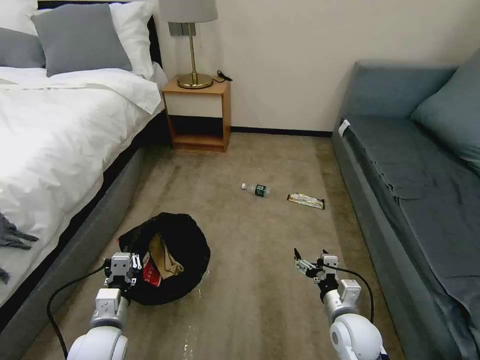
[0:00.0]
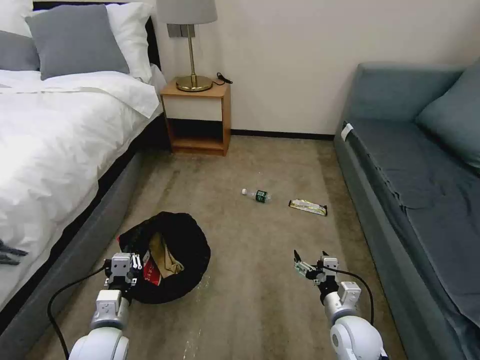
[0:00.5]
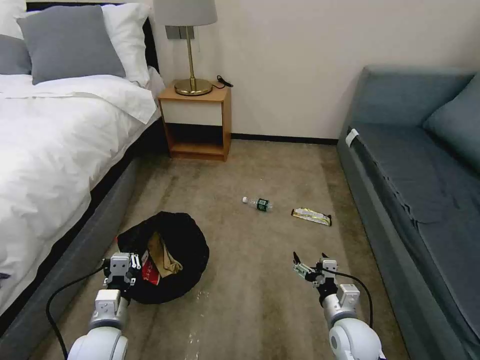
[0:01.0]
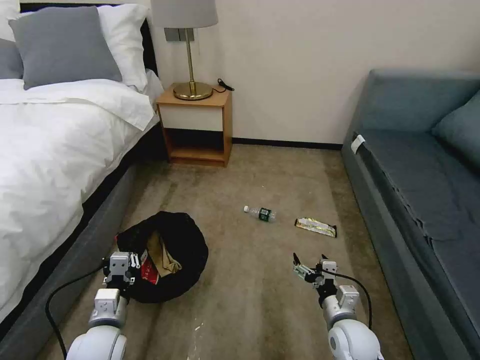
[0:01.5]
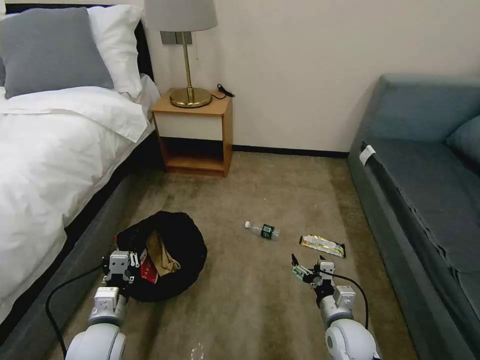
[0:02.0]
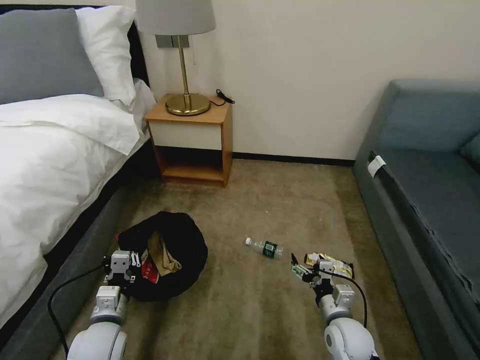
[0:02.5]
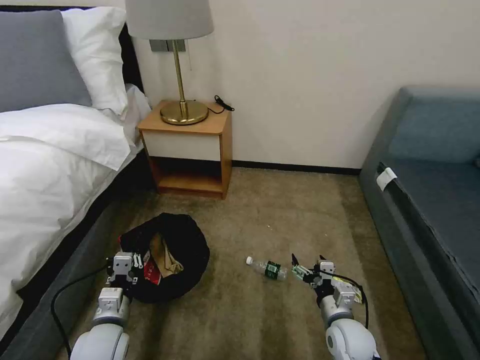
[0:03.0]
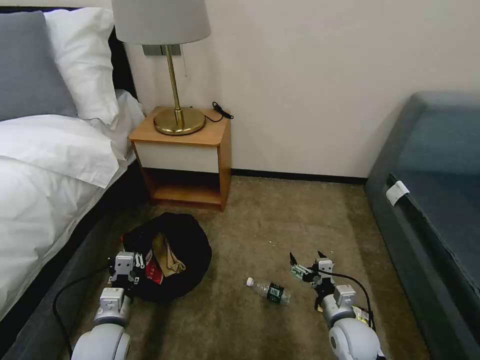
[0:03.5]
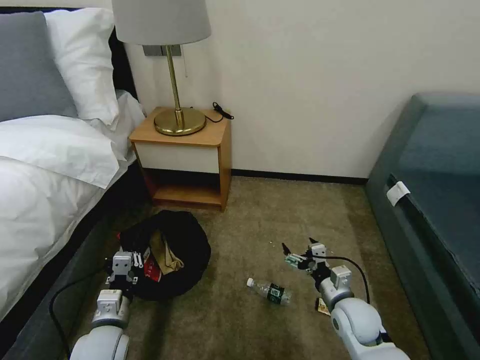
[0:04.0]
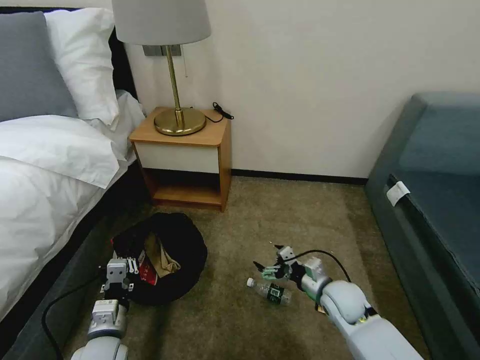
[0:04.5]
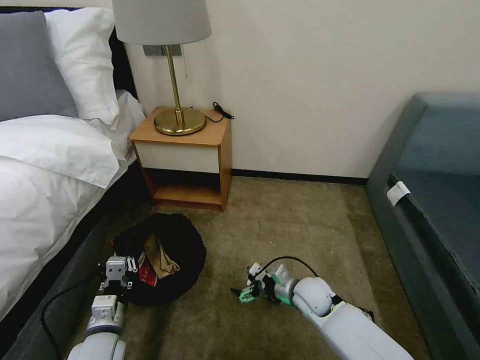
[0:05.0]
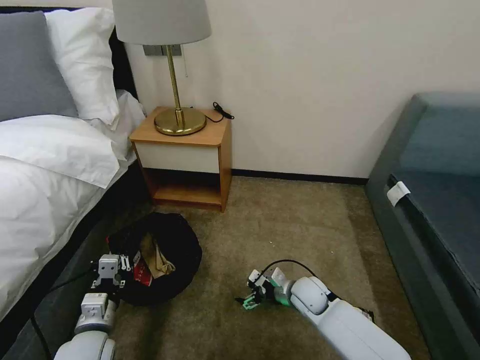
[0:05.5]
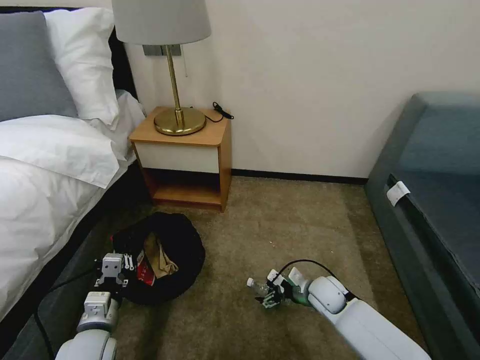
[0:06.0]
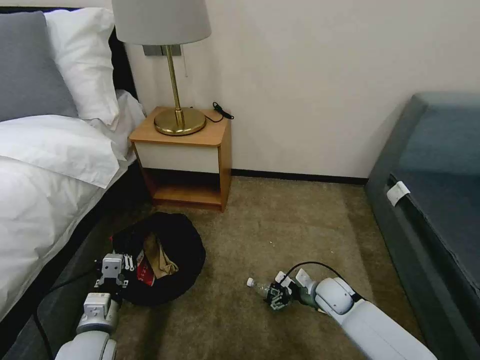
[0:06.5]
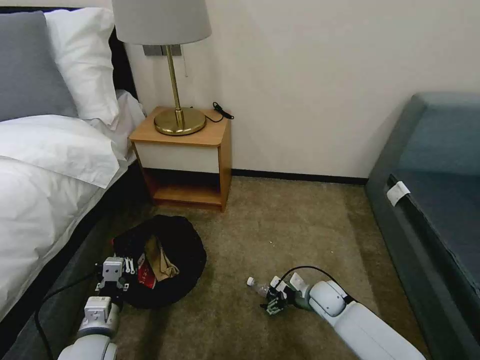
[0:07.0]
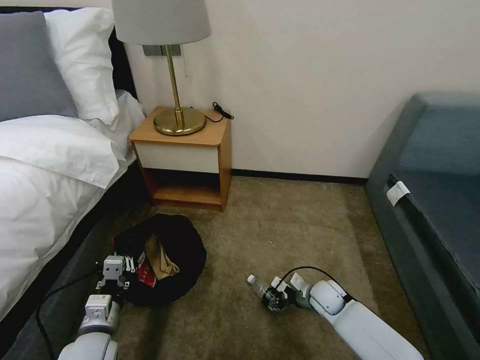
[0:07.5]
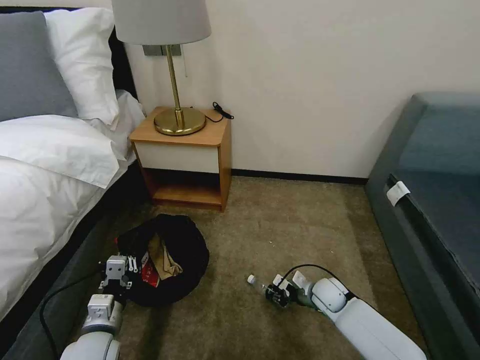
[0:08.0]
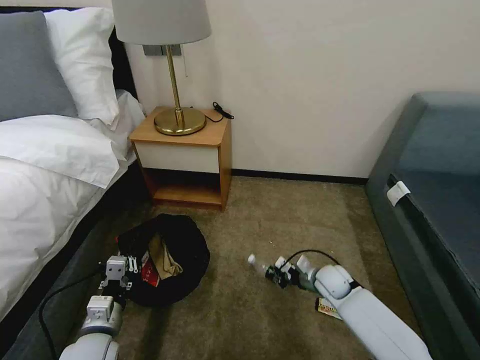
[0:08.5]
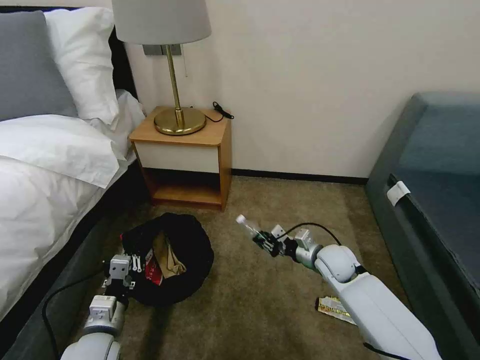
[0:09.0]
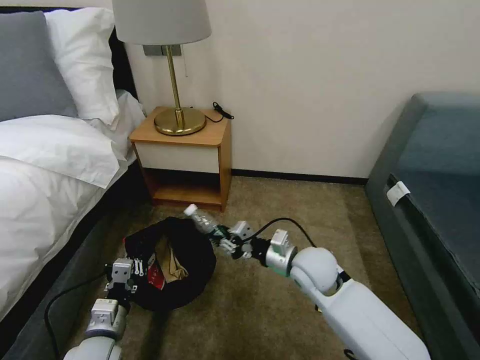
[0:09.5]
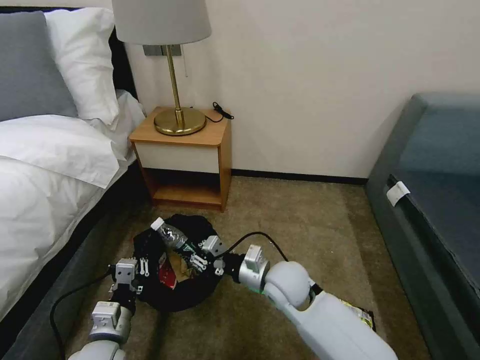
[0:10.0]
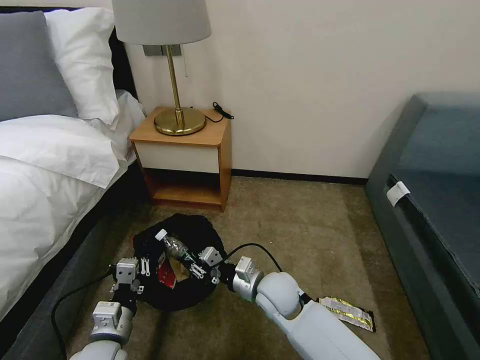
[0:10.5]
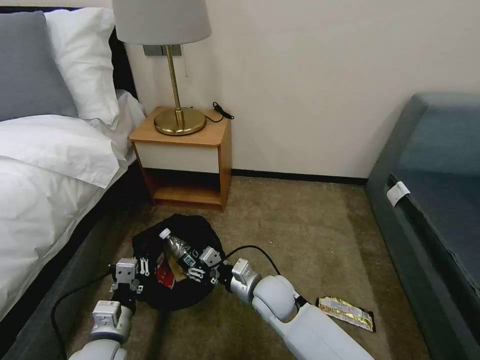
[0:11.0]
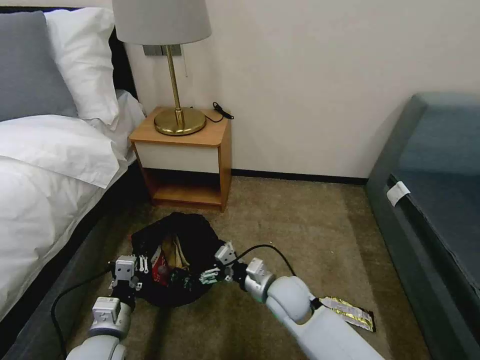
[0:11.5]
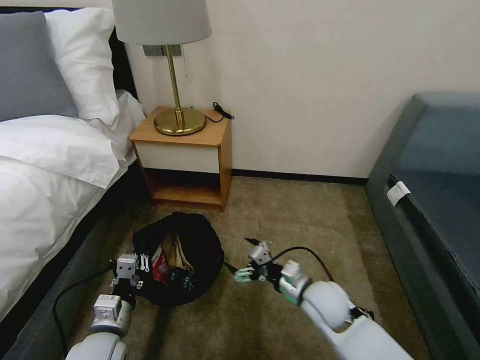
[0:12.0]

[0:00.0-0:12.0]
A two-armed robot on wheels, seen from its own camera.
Task of the whole recording: Pick up the trash bin, then pick up the garbage on the floor and place it into the trash bin.
0:02.0 to 0:04.0: The right gripper ends up about 5 cm from where it was.
0:04.0 to 0:06.0: The right gripper travels forward and downward by some 10 cm, and travels to the left and back again, approximately 10 cm each way.
0:06.0 to 0:08.0: The right gripper closes its fingers.
0:08.0 to 0:10.0: The right gripper heads upward and to the left, covering approximately 25 cm.
0:10.0 to 0:12.0: The right gripper moves downward, roughly 5 cm, and opens up.

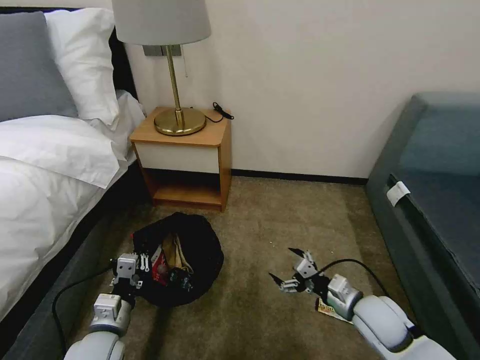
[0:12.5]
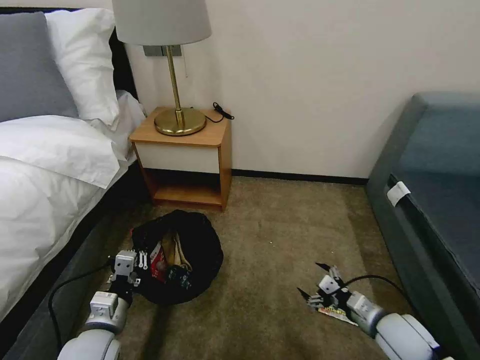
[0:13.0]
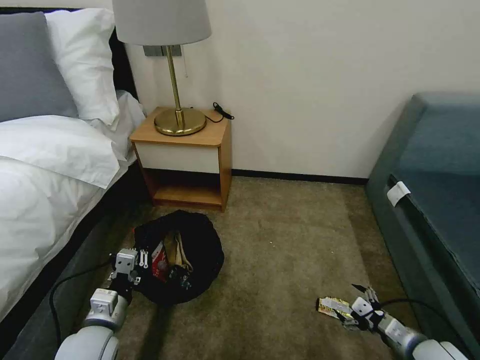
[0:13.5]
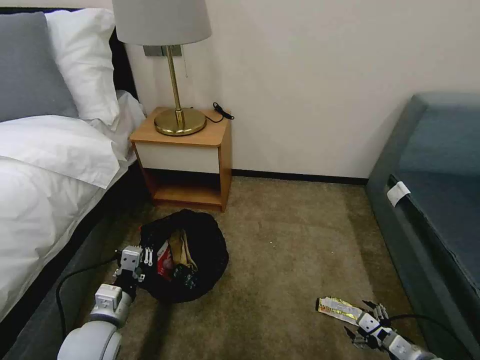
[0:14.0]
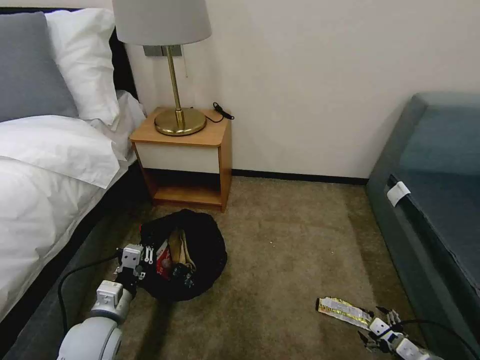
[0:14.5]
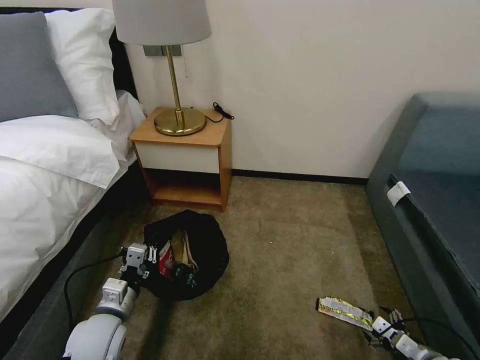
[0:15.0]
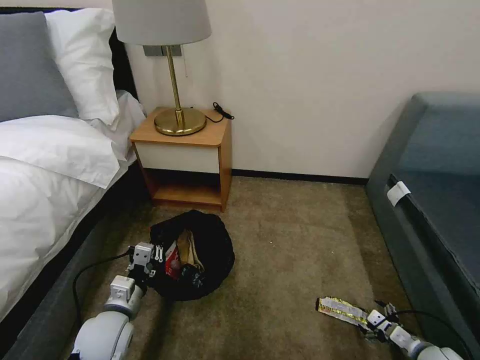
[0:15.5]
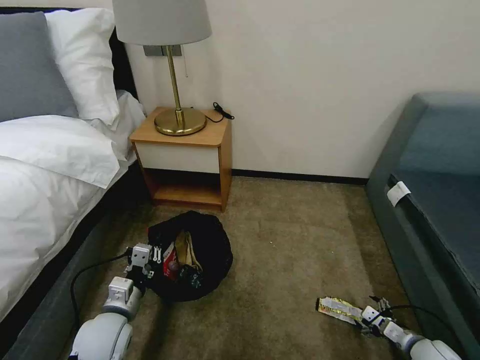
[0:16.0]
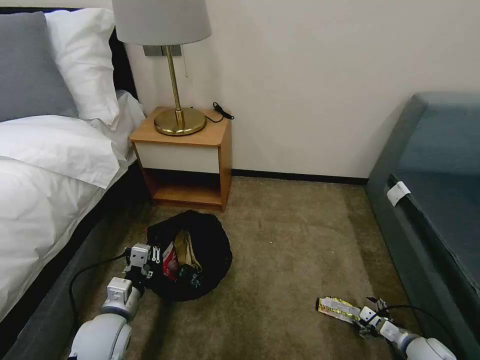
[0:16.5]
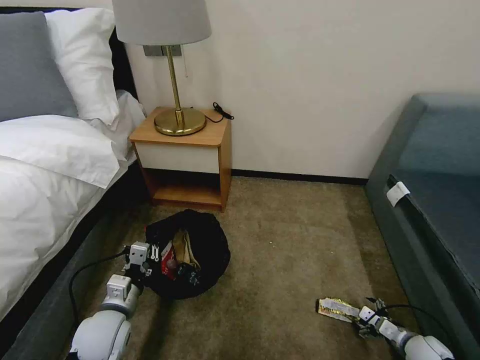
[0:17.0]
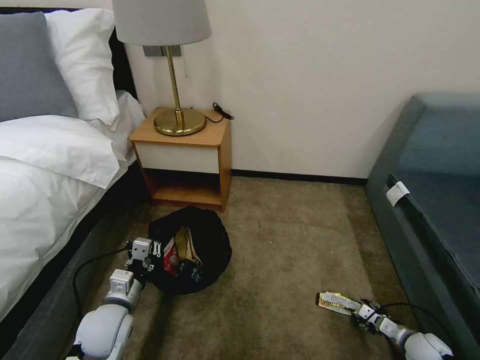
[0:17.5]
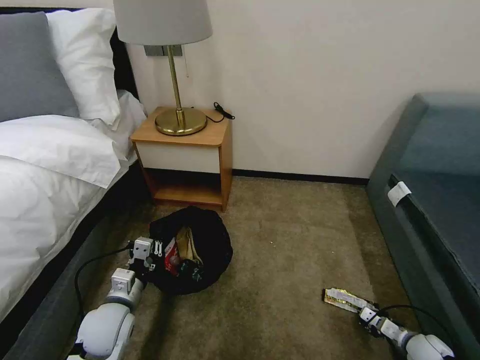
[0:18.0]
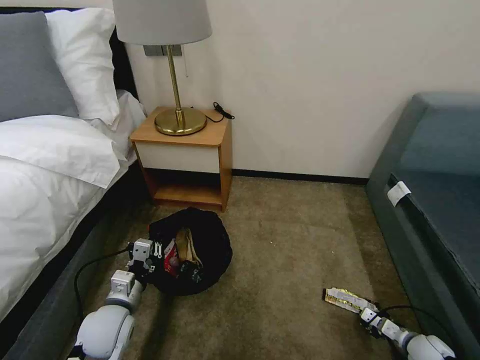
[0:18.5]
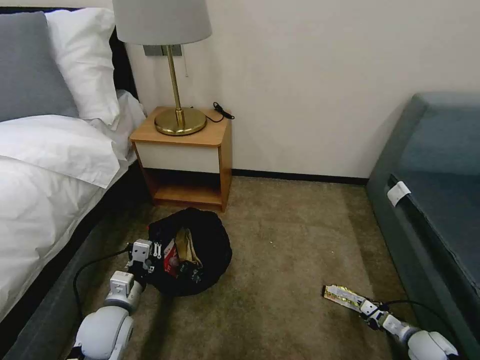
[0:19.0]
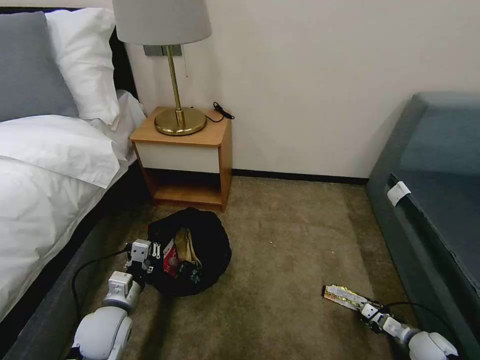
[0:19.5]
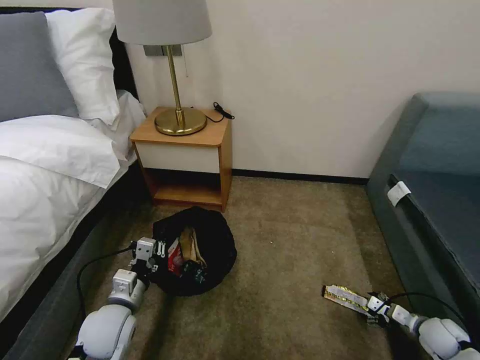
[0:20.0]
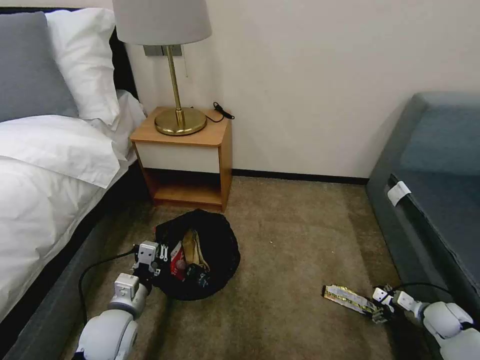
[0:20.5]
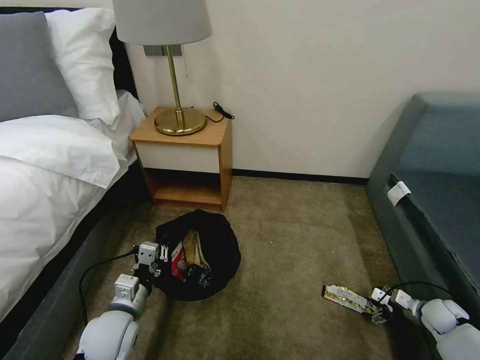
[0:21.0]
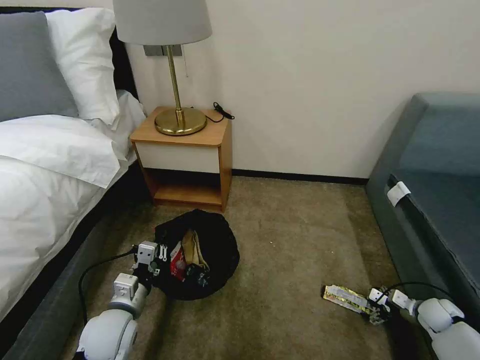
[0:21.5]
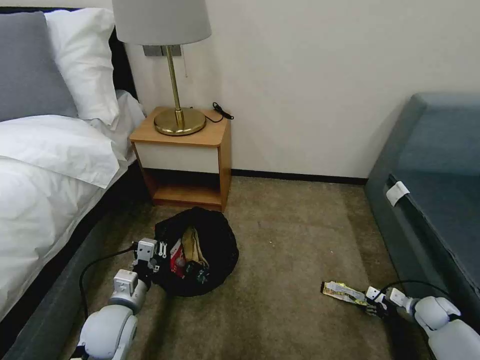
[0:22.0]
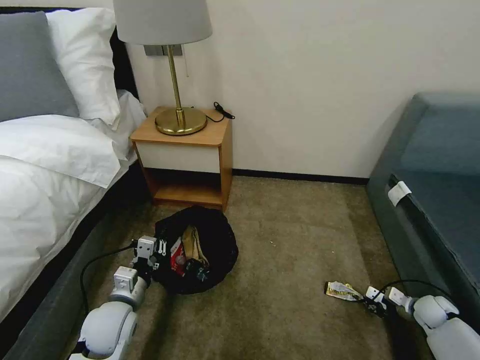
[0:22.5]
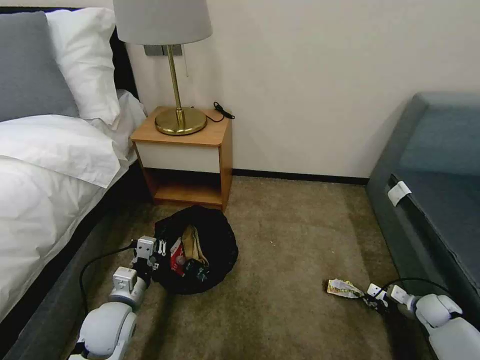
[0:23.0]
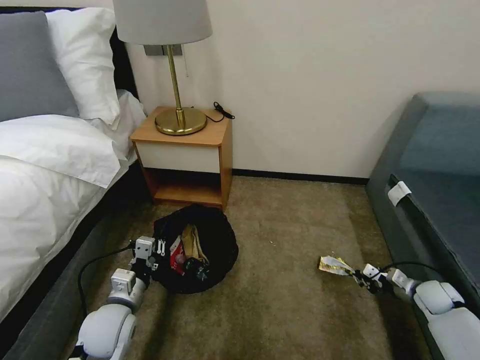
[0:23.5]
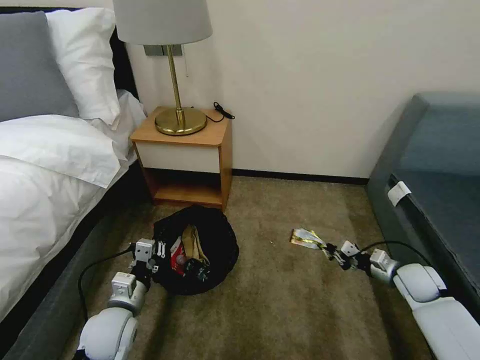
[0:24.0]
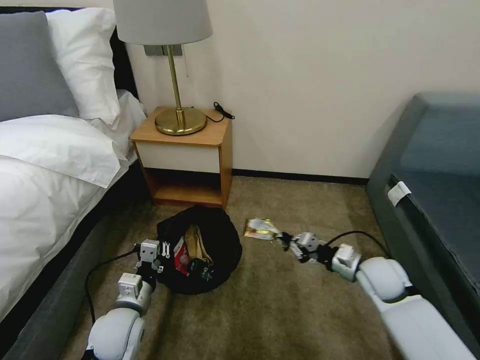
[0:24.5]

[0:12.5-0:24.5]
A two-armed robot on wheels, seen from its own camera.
Task of the whole recording: Pick up the trash bin, then pick up the garbage on the floor and place it into the trash bin.
0:12.5 to 0:14.5: The right gripper is displaced to the right and backward by about 20 cm.
0:14.5 to 0:16.5: The right gripper is displaced downward, forward and to the right by some 10 cm.
0:16.5 to 0:18.5: The right gripper closes up.
0:18.5 to 0:20.5: The right gripper opens.
0:20.5 to 0:22.5: The right gripper heads forward, covering some 5 cm, and closes.
0:22.5 to 0:24.5: The right gripper moves to the left and upward, approximately 25 cm.

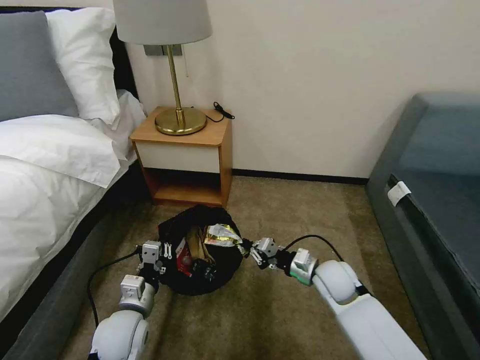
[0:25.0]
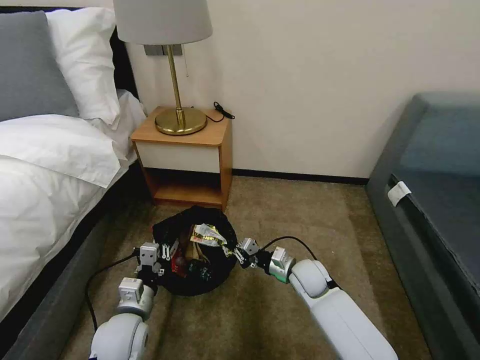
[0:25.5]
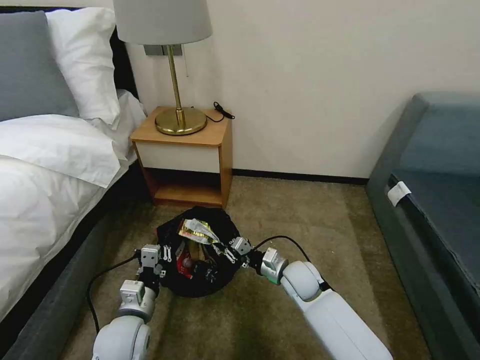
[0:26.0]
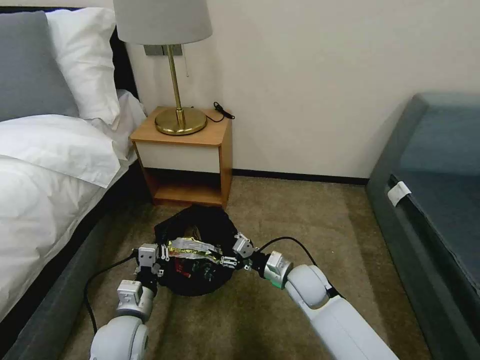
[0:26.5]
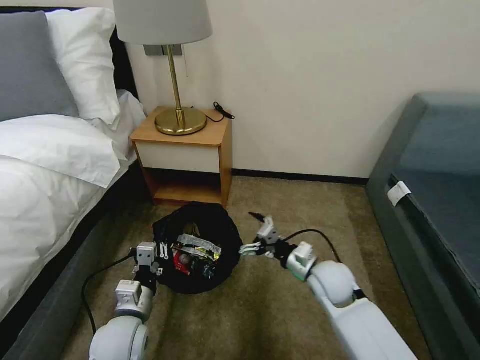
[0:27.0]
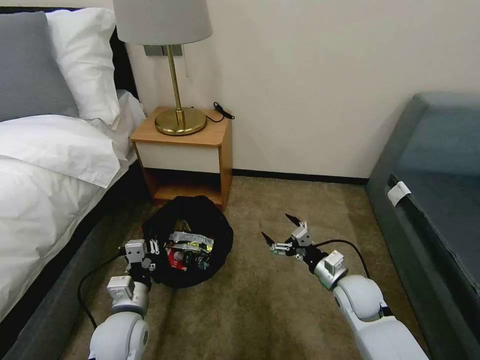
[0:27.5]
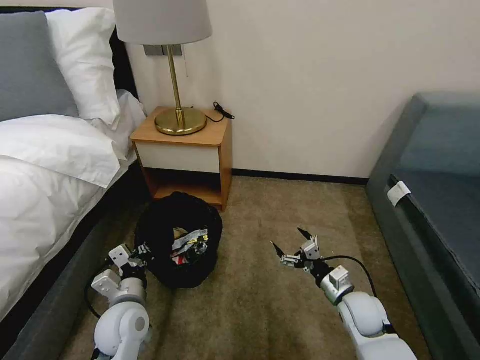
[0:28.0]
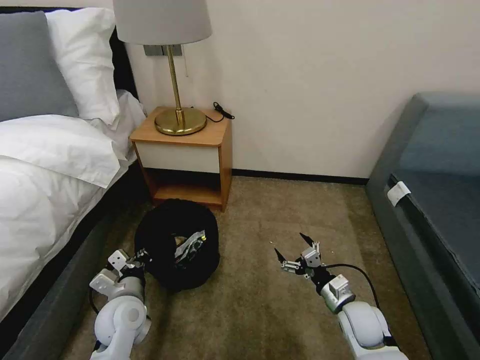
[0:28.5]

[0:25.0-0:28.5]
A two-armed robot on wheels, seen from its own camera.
Task of the whole recording: Pick up the trash bin, then pick up the garbage on the floor and place it into the trash bin.
0:25.0 to 0:27.0: The right gripper travels to the left and back again, some 10 cm each way, and opens.
0:27.0 to 0:28.5: The right gripper goes roughly 10 cm downward, to the right and backward.
